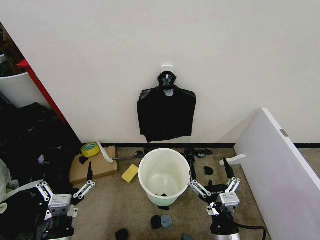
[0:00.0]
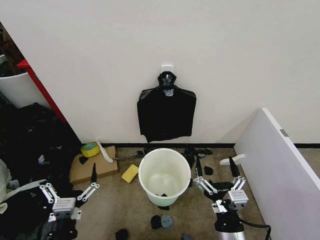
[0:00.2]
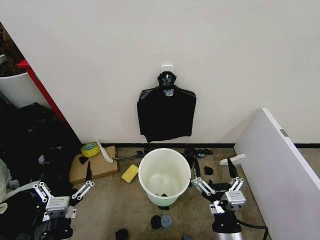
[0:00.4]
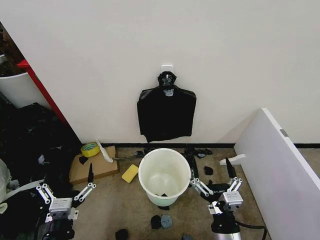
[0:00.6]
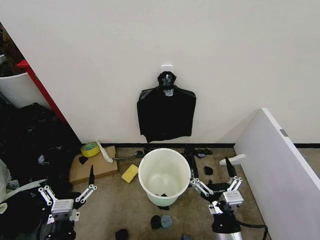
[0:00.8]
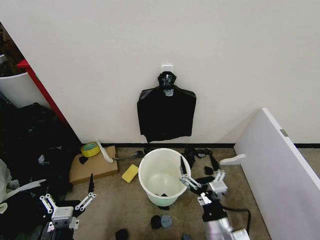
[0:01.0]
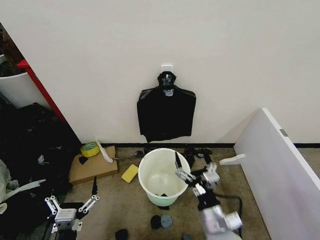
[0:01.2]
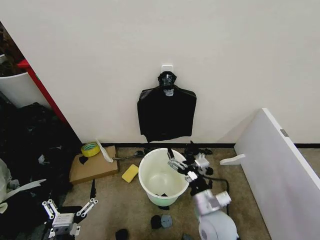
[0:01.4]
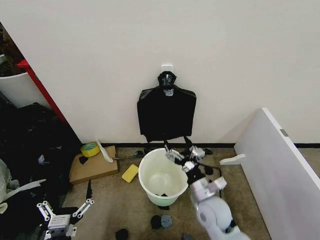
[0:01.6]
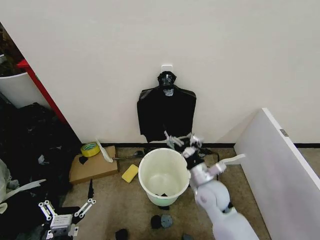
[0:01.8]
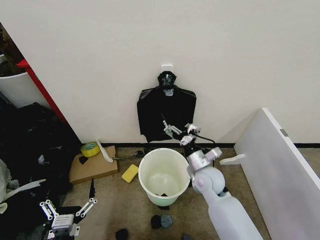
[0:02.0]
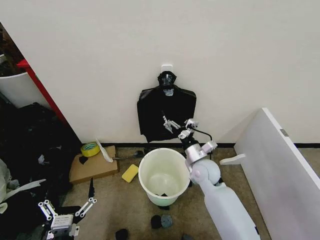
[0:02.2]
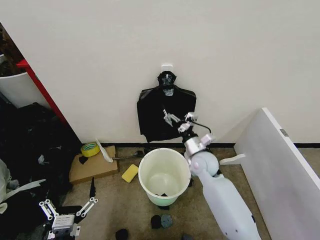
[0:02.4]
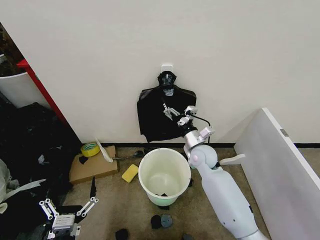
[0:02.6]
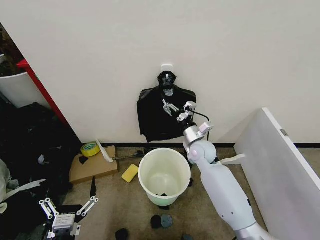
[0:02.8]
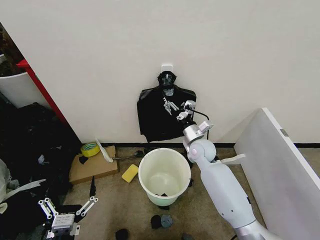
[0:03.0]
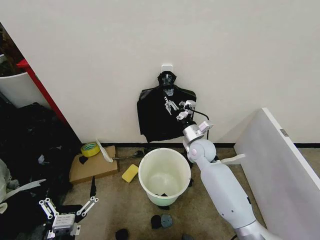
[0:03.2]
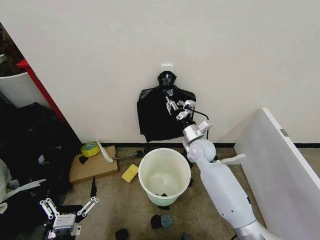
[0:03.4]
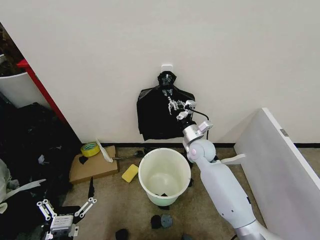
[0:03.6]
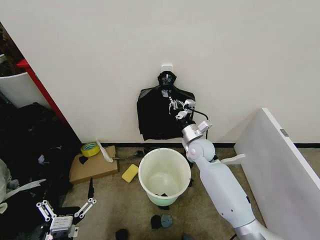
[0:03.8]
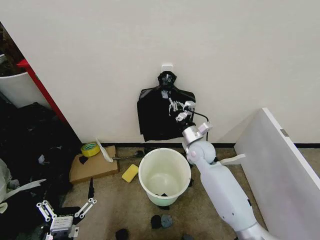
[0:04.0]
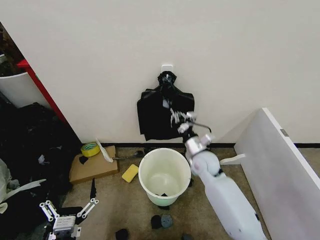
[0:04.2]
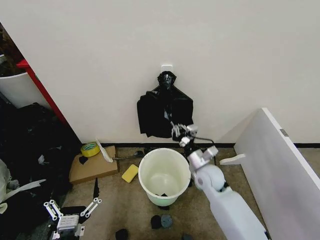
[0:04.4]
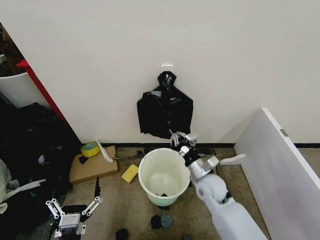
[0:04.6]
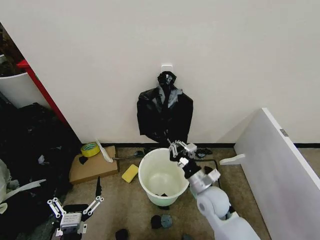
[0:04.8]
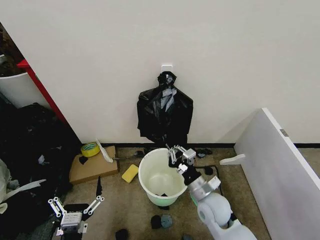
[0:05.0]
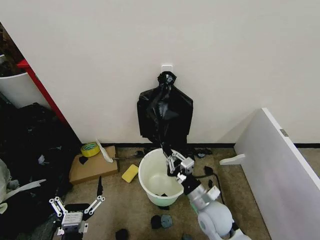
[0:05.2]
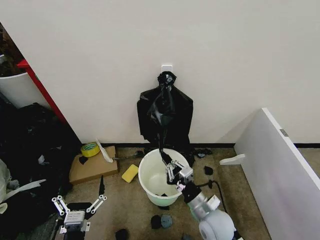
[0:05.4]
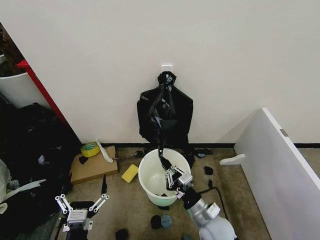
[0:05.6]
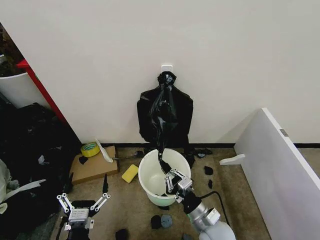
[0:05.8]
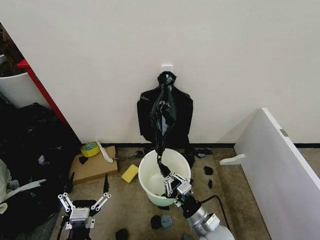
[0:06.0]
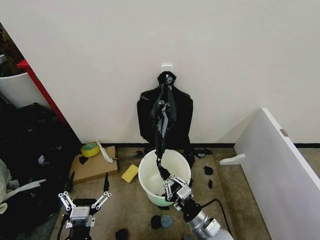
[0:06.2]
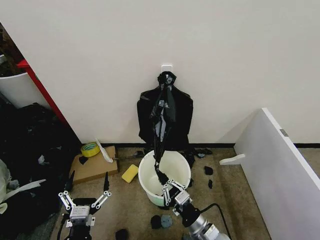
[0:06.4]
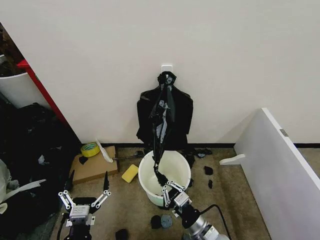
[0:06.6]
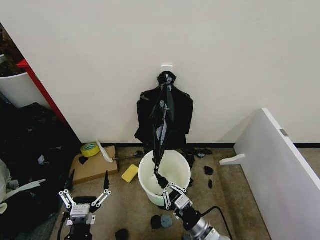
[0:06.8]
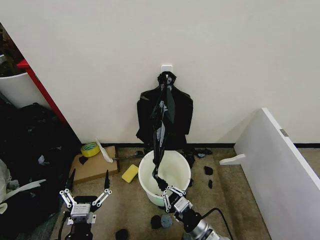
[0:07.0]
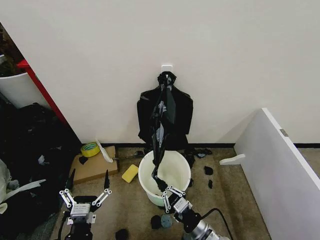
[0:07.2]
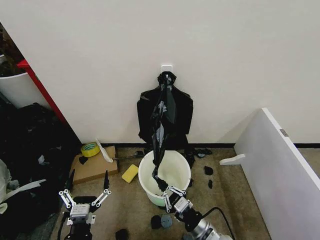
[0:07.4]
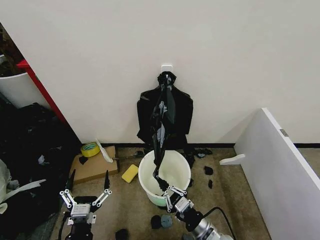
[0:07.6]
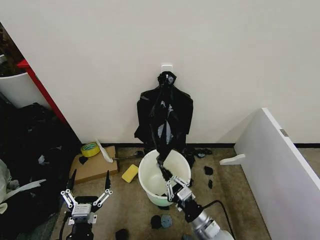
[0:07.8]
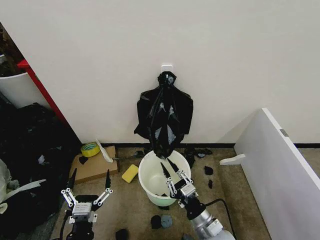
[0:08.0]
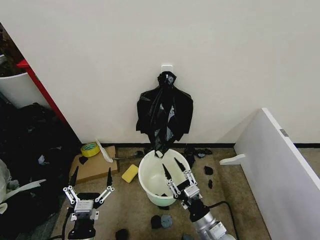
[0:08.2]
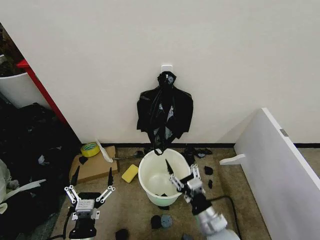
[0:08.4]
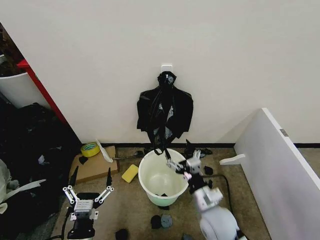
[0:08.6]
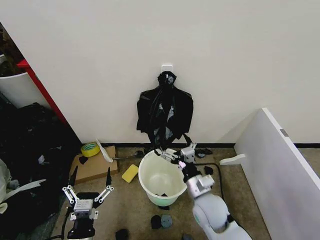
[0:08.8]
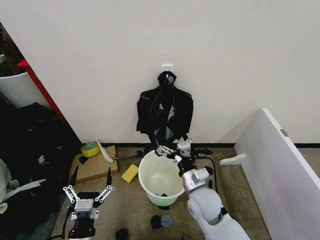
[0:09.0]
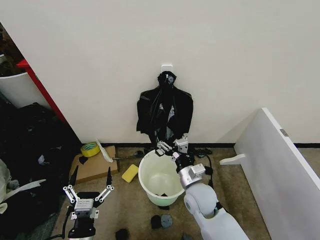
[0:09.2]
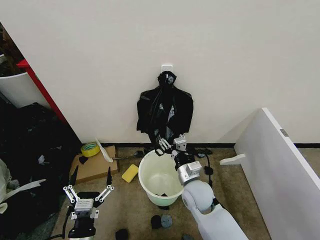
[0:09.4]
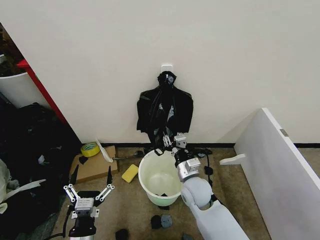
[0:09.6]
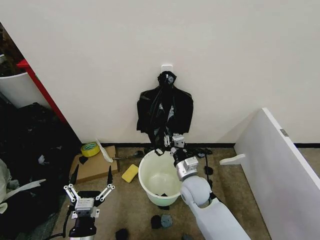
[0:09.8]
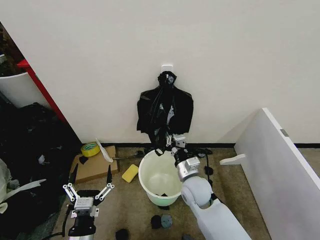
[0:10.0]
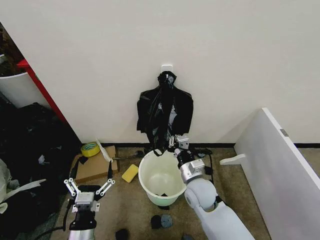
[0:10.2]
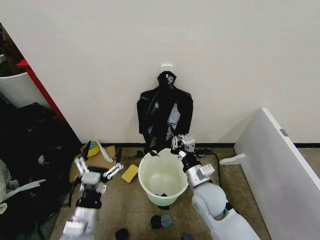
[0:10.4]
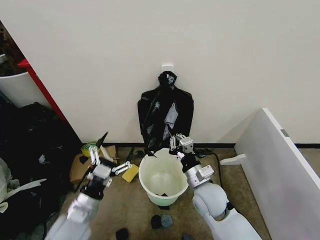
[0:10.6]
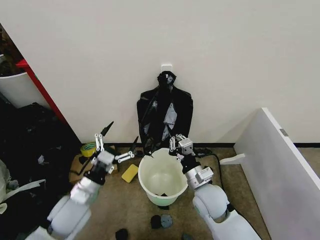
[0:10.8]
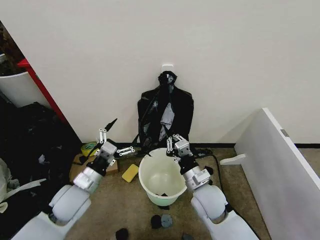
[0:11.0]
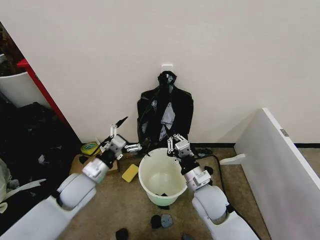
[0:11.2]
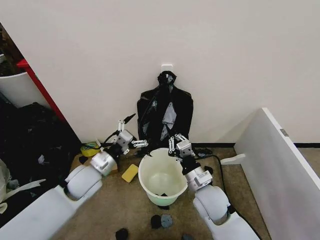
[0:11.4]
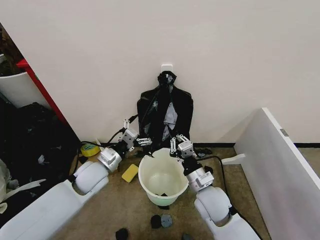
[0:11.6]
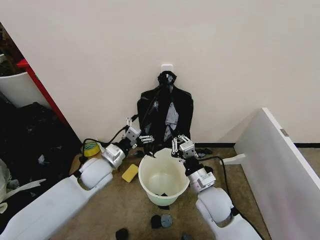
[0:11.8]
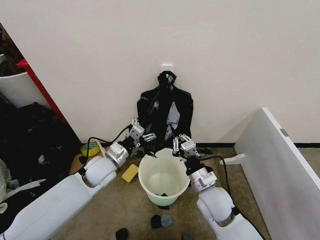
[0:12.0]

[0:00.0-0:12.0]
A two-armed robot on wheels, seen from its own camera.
Task of the whole recording: Place the garbage bag over the trash bin.
0:01.6 to 0:03.0: The right gripper moves forward, about 20 cm.
0:03.0 to 0:04.4: The right gripper heads backward, covering roughly 10 cm, and closes up.
0:04.4 to 0:06.0: The right gripper heads backward, covering about 20 cm.
0:06.0 to 0:07.6: The grippers stay close to where they were, moving slightly.
0:07.6 to 0:09.0: The right gripper heads forward and upward, covering approximately 15 cm, and opens up.
0:09.0 to 0:10.4: The right gripper closes. Meanwhile the left gripper moves approximately 5 cm.
0:10.4 to 0:12.0: The left gripper moves forward, some 20 cm.

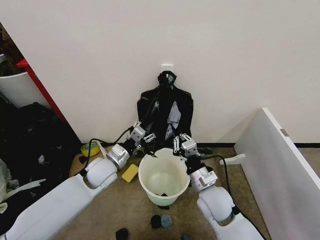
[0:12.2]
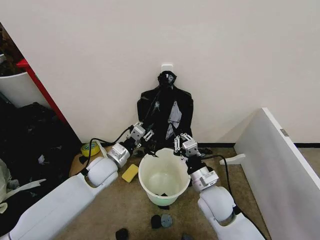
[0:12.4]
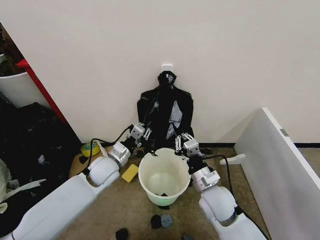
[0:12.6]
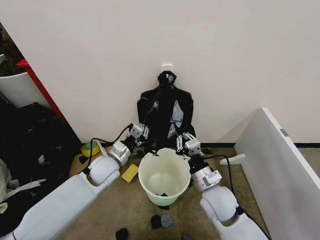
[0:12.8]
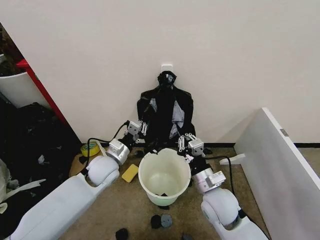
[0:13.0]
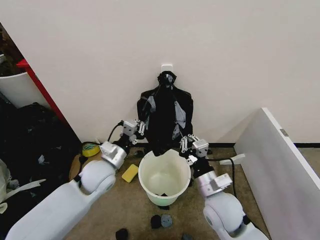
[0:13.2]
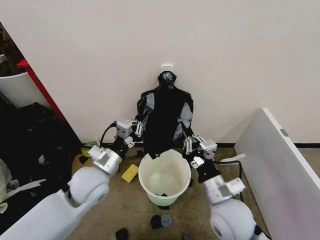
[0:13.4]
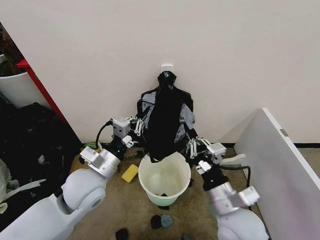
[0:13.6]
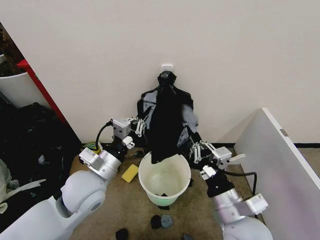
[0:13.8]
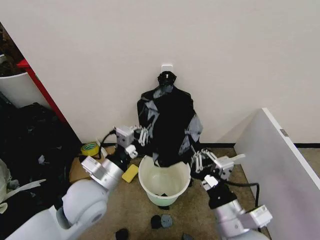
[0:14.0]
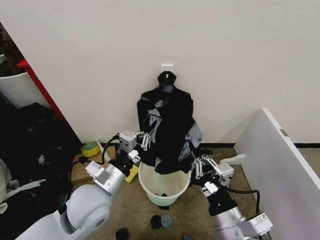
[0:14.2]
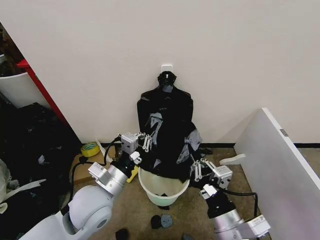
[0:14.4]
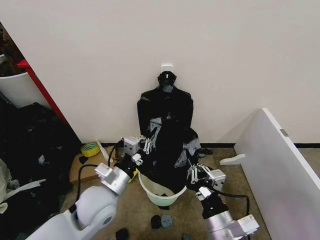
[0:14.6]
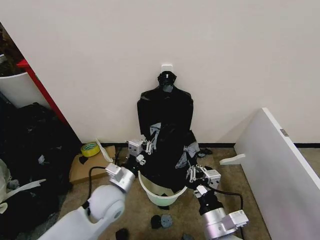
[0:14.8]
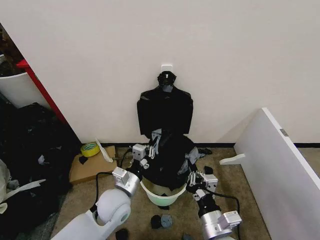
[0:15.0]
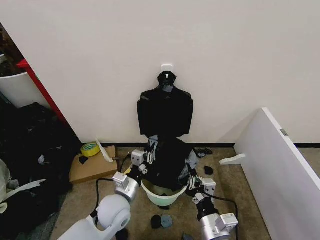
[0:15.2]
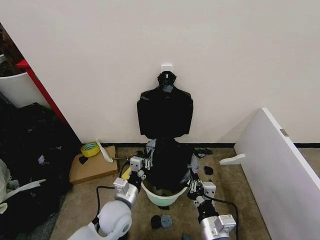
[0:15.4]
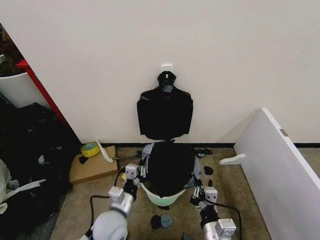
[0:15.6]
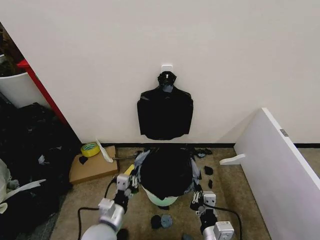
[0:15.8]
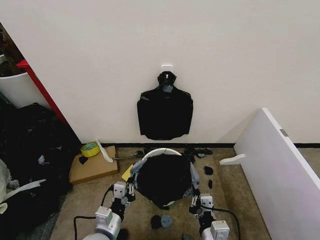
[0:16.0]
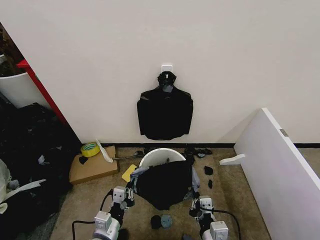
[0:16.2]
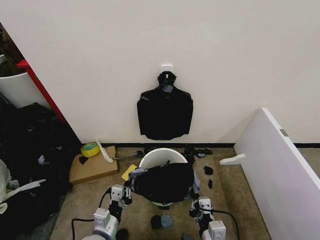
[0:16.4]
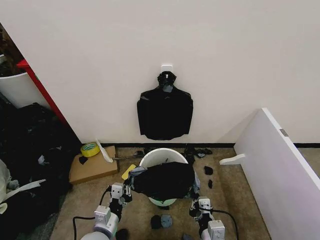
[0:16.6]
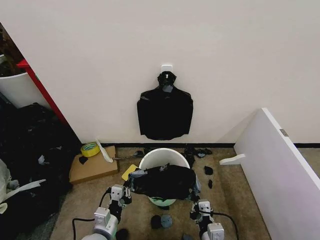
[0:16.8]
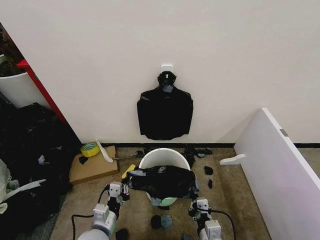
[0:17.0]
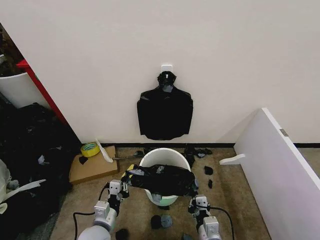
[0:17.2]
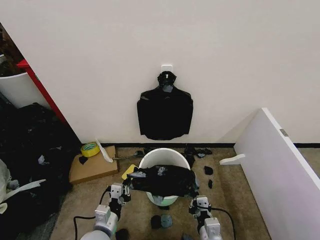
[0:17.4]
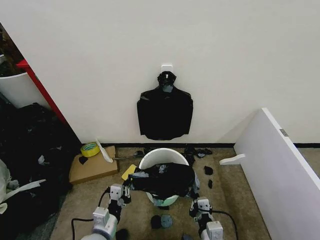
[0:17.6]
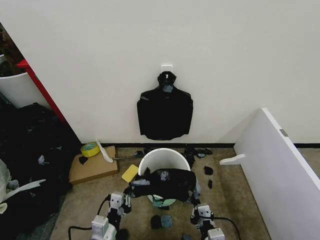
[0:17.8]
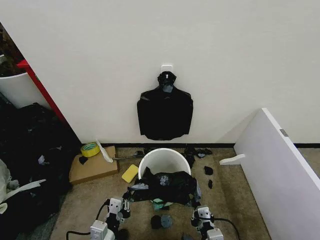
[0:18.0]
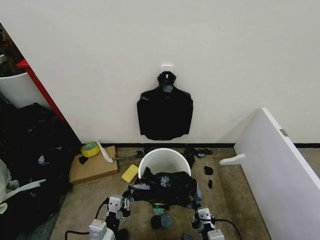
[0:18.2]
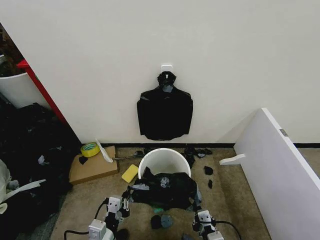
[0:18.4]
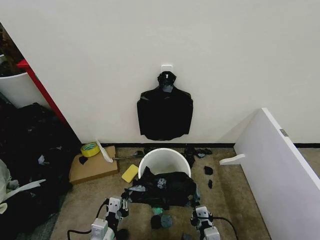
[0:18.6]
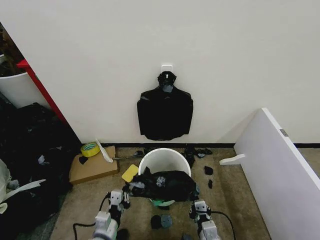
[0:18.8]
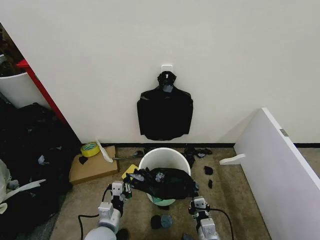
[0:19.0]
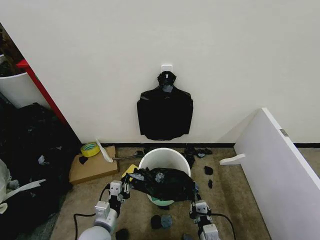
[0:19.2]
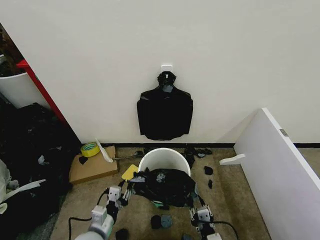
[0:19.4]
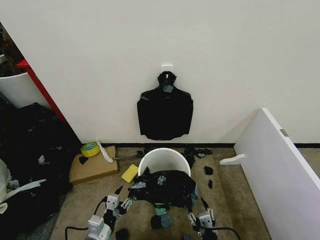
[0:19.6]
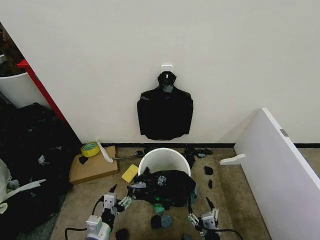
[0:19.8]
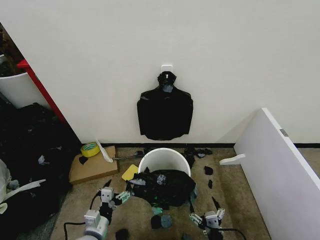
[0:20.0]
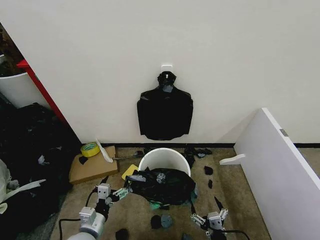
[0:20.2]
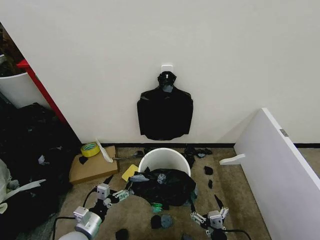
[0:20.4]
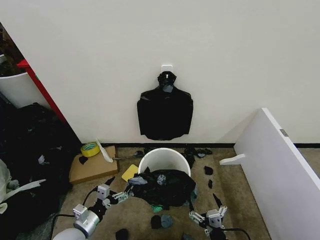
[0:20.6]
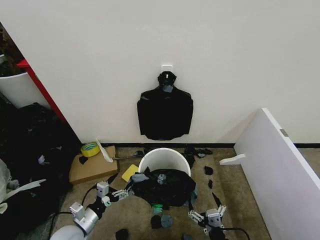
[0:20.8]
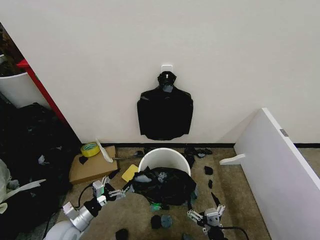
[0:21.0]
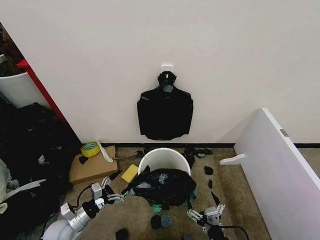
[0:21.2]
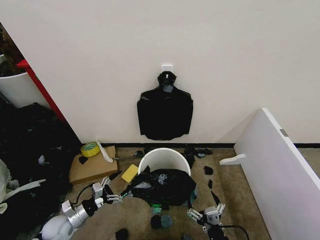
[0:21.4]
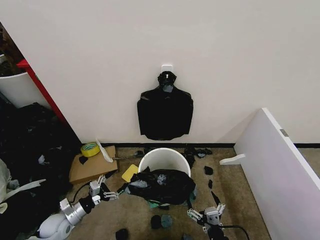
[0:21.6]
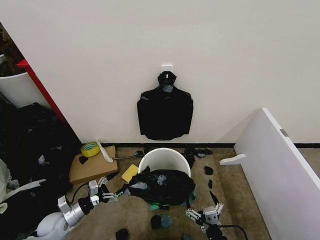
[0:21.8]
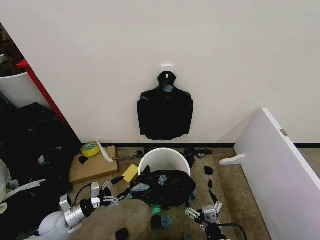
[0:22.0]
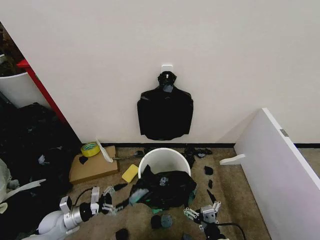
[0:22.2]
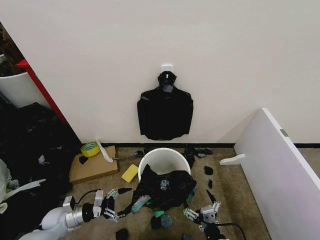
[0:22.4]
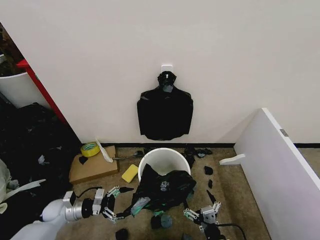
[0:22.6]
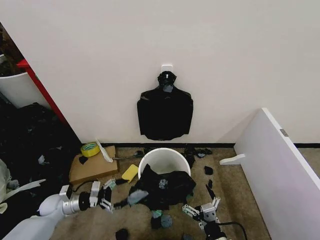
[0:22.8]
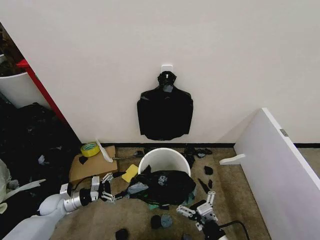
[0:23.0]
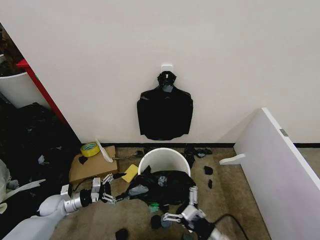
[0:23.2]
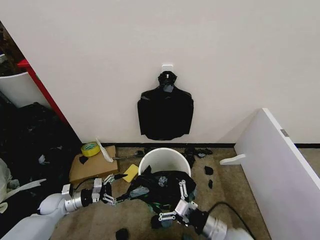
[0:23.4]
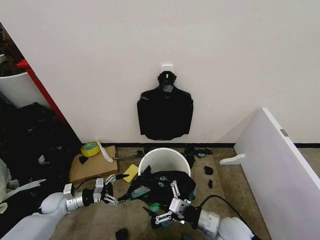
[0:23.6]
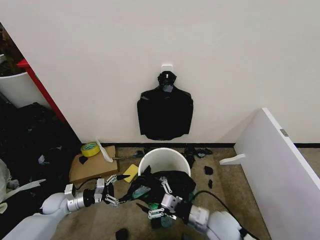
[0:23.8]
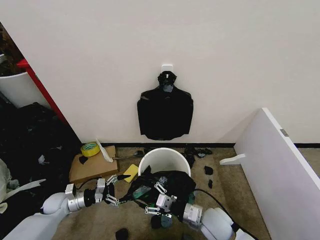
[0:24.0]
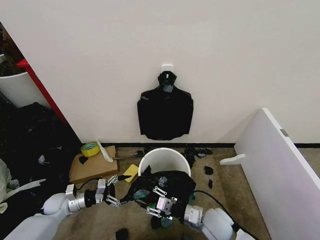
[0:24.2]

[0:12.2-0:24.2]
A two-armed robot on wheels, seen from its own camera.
Task of the whole recording: Place the garbage bag over the trash bin.
0:12.2 to 0:13.8: The grippers both shift backward and upward by about 15 cm. The left gripper closes its fingers.
0:13.8 to 0:15.2: Both grippers move downward, about 15 cm.
0:15.2 to 0:16.6: The left gripper travels backward by approximately 10 cm. Meanwhile the right gripper ends up roughly 5 cm from where it was.
0:16.6 to 0:18.2: There are only small adjustments of the grippers.
0:18.2 to 0:19.8: Both grippers travel together downward, roughly 5 cm. The right gripper opens; the left gripper opens.
0:19.8 to 0:21.2: The left gripper travels to the left and forward by approximately 15 cm.
0:21.2 to 0:22.6: The left gripper heads forward, covering some 5 cm.
0:22.6 to 0:24.2: The right gripper shifts about 15 cm forward, and closes its fingers.
